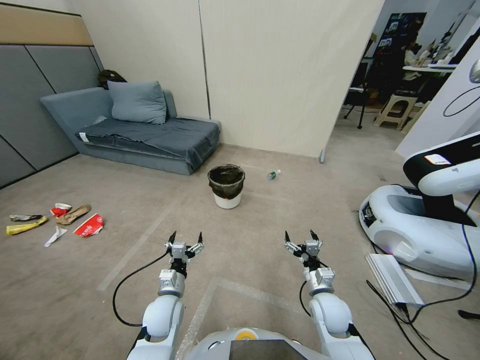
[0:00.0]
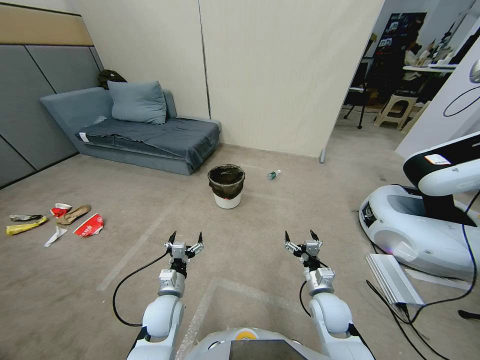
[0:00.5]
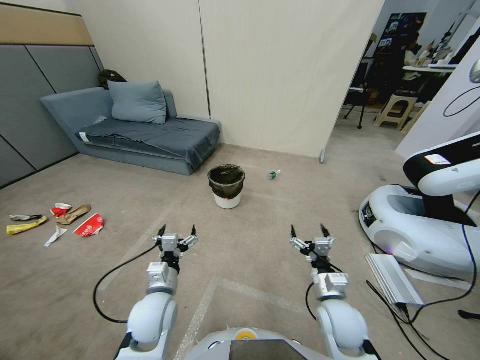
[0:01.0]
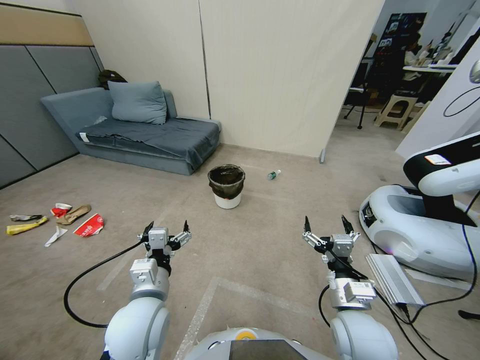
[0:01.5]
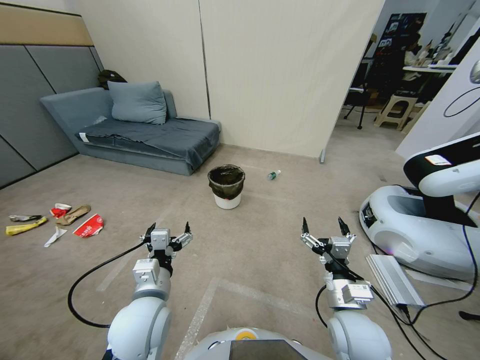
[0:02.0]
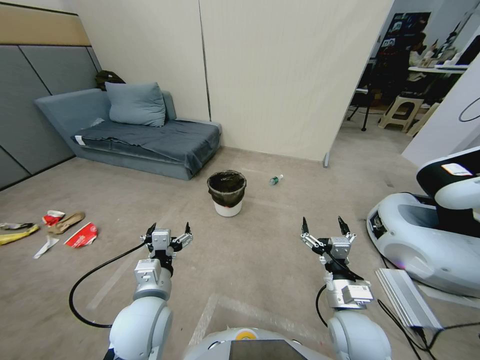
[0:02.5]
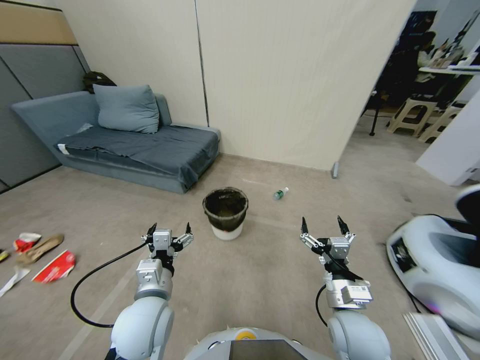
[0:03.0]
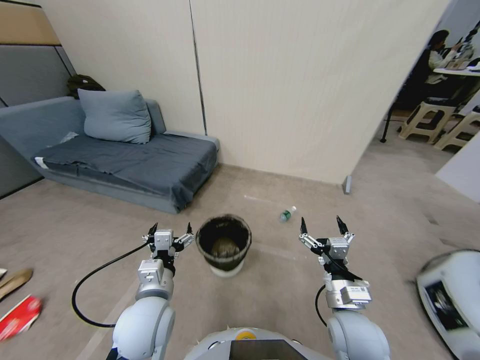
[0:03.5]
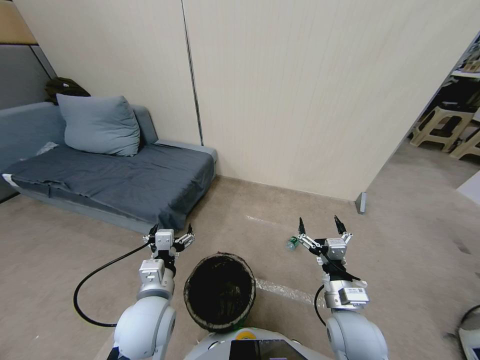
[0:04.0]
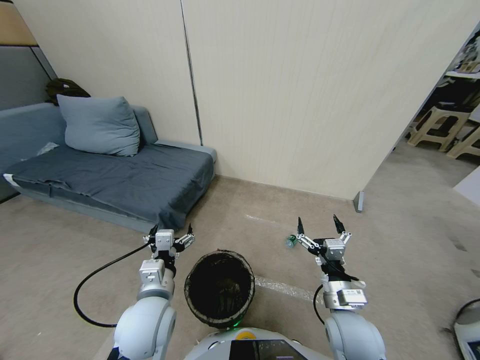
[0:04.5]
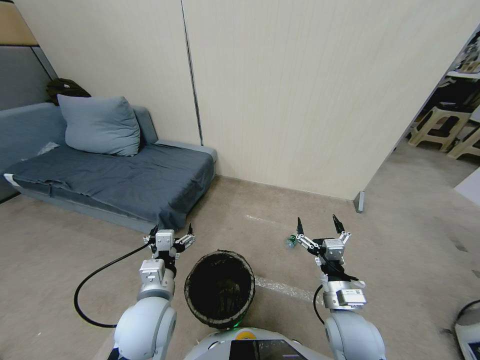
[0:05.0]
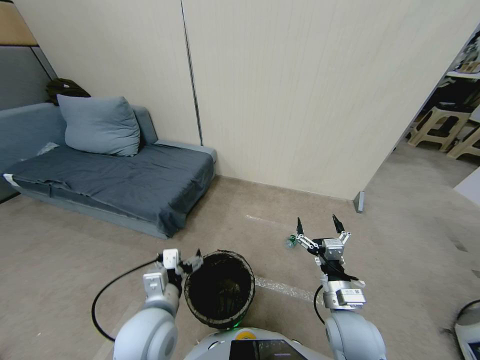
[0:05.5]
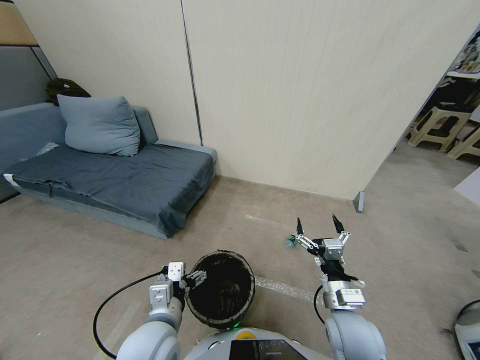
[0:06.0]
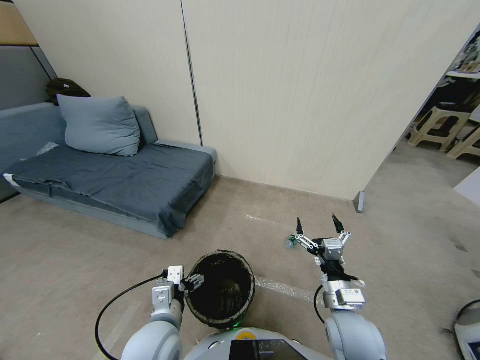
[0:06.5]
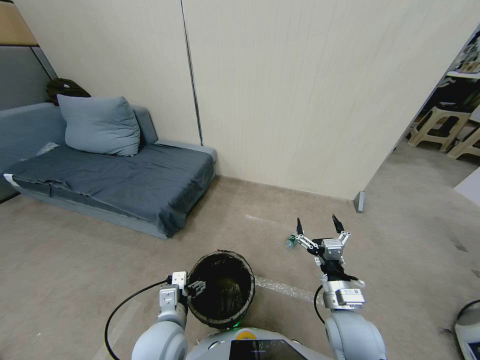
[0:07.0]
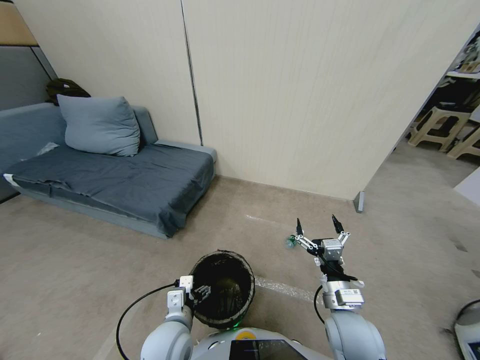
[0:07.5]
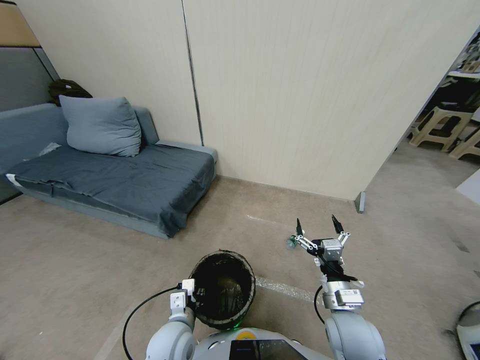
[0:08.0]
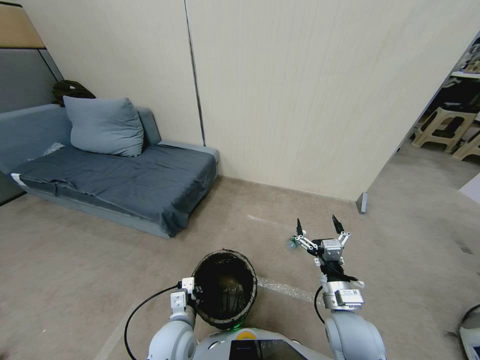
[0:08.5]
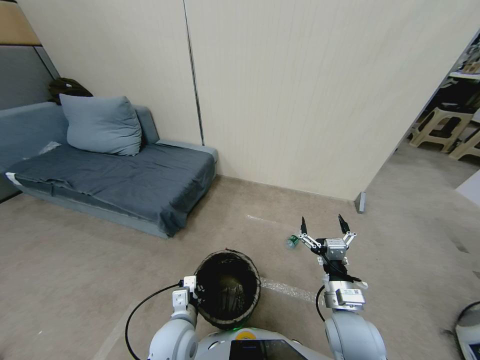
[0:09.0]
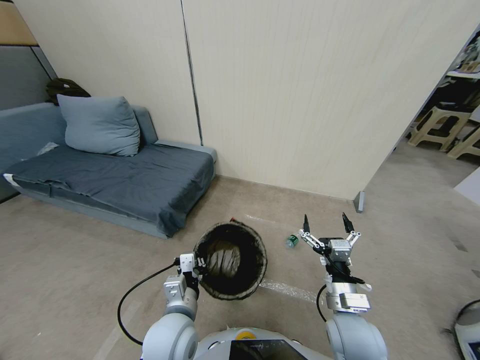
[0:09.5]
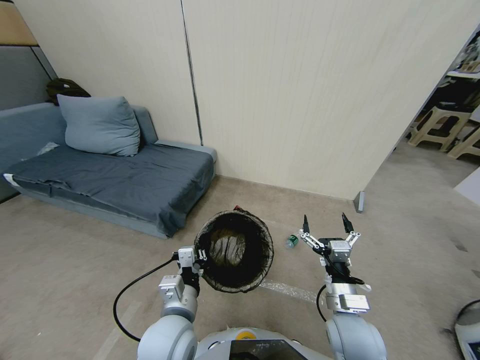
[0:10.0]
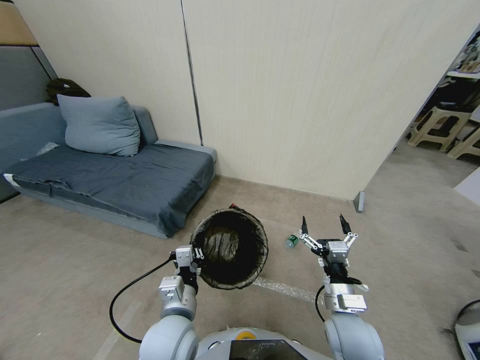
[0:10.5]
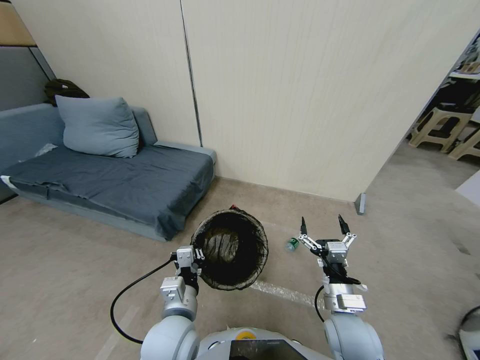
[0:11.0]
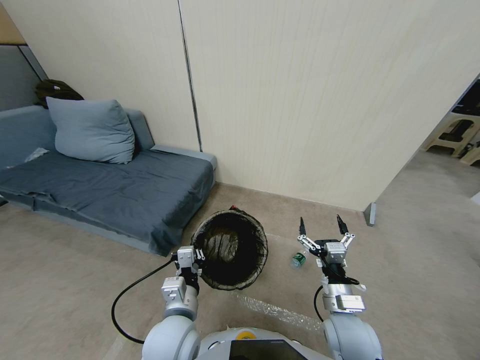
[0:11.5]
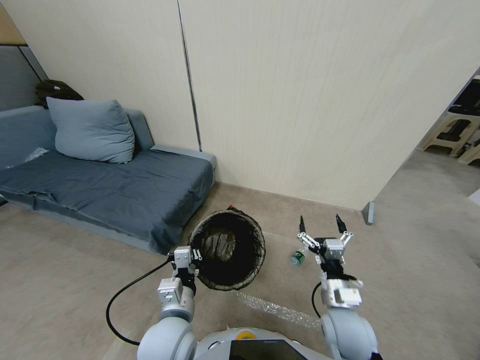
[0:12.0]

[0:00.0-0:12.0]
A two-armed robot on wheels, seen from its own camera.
Task of the whole recording: Pick up the trash bin, then pick up the garbage from the floor and place it into the trash bin.
0:06.0 to 0:08.0: The left gripper shifts some 10 cm downward, and closes.
0:08.0 to 0:10.0: The left gripper is displaced upward by about 10 cm.
0:10.0 to 0:12.0: The grippers make only small movements.

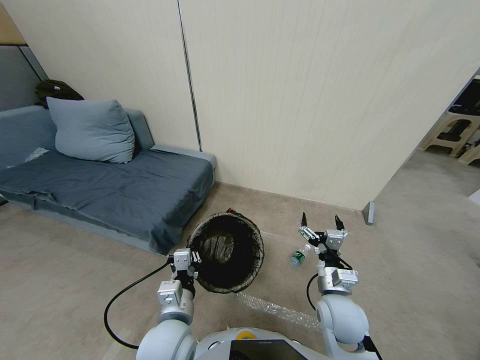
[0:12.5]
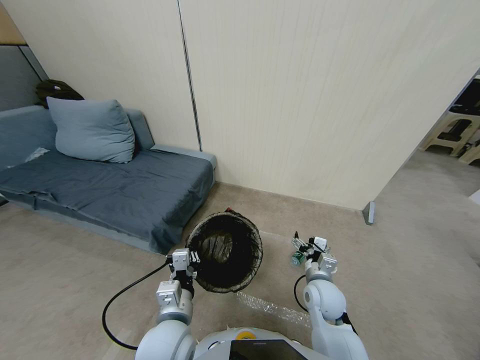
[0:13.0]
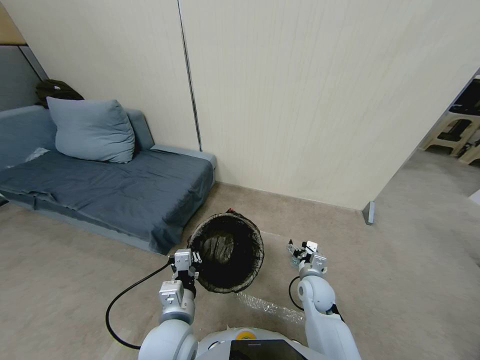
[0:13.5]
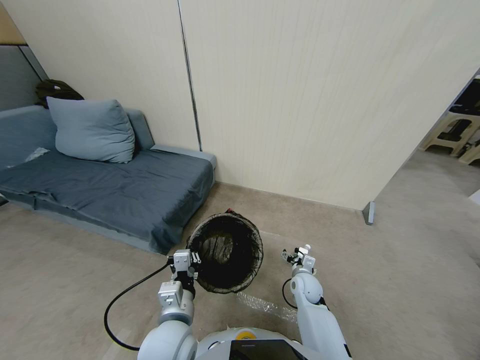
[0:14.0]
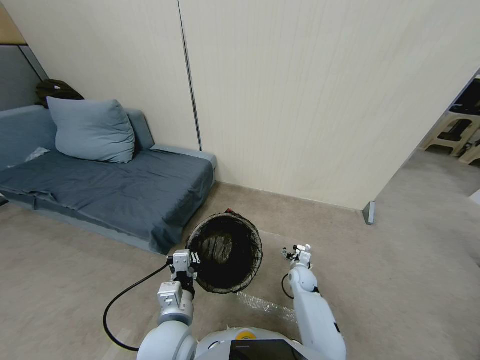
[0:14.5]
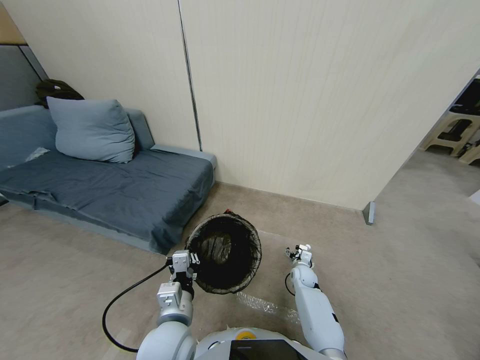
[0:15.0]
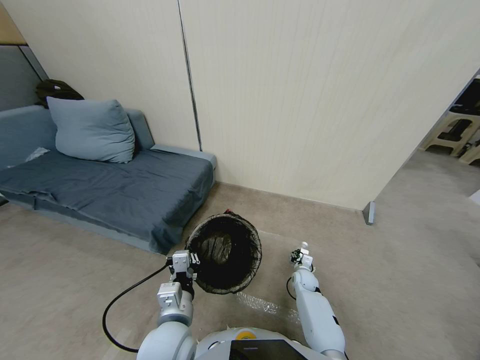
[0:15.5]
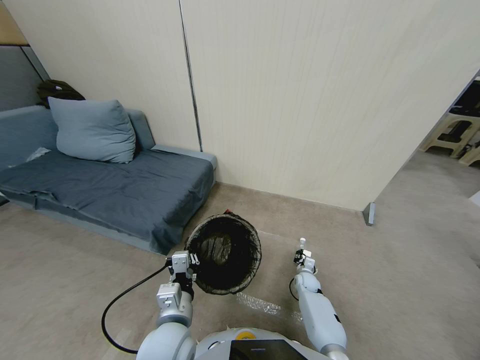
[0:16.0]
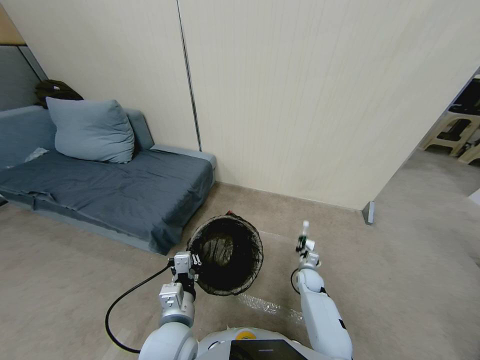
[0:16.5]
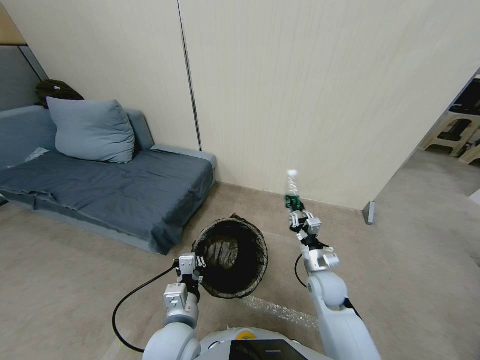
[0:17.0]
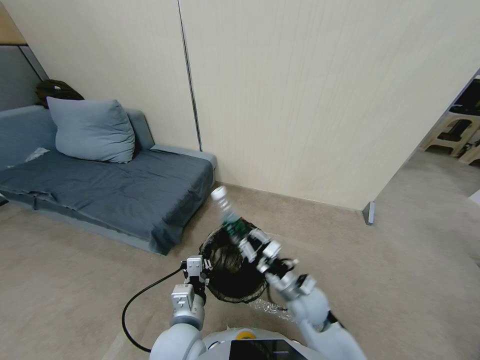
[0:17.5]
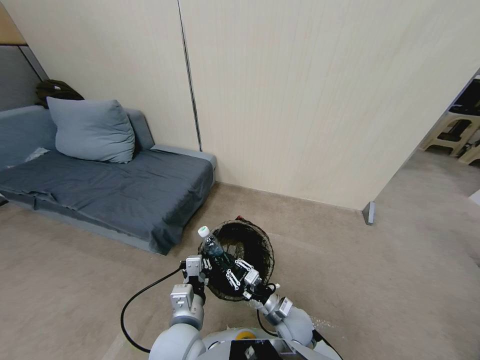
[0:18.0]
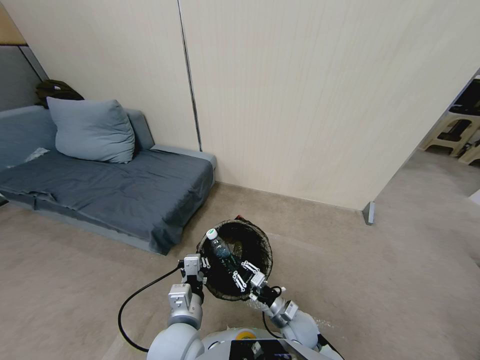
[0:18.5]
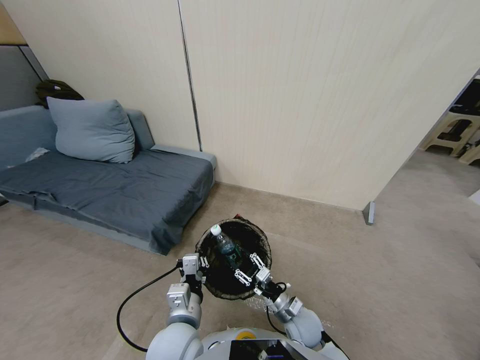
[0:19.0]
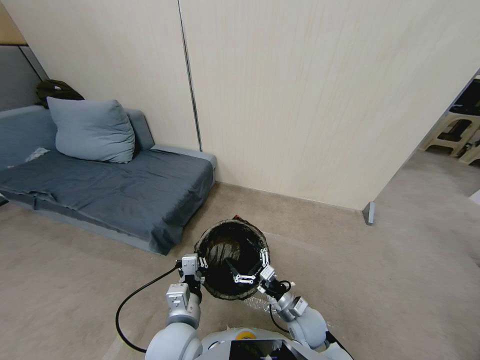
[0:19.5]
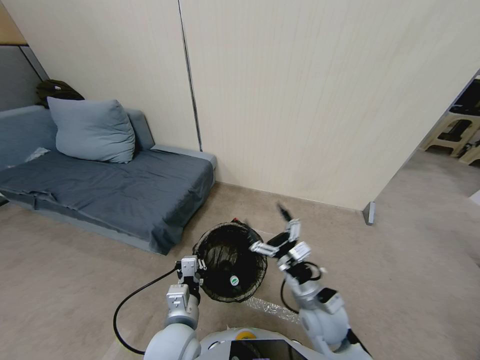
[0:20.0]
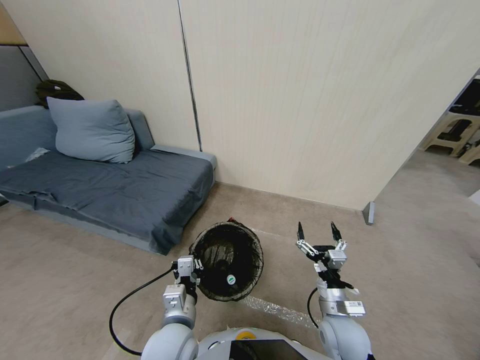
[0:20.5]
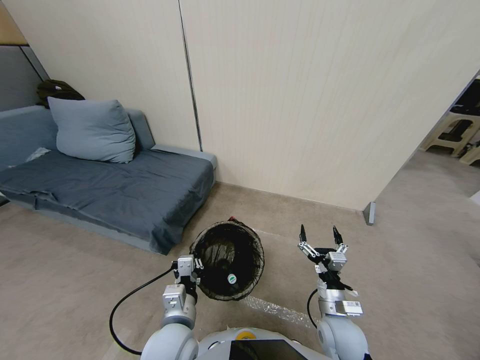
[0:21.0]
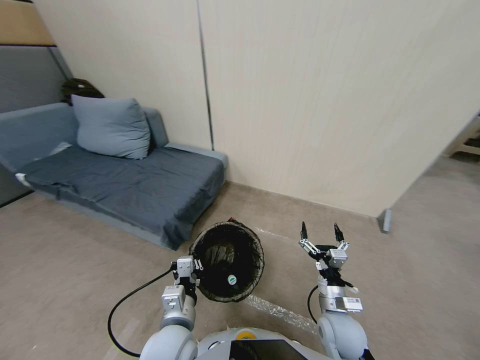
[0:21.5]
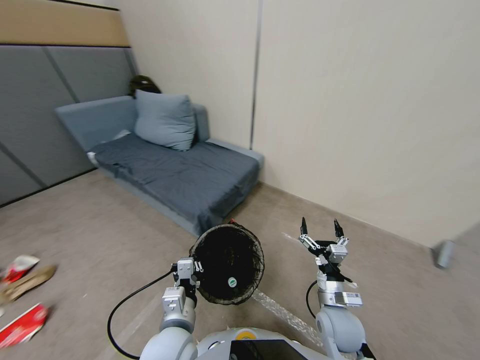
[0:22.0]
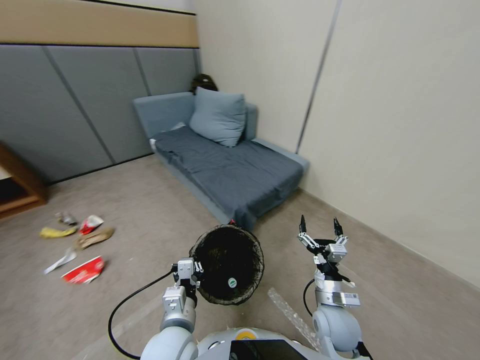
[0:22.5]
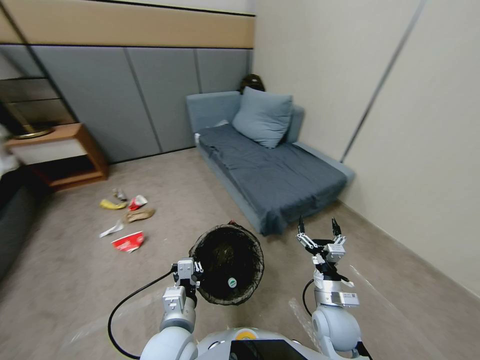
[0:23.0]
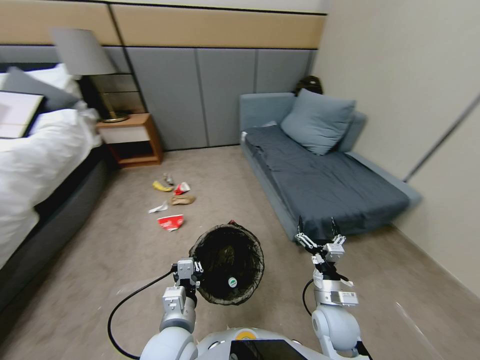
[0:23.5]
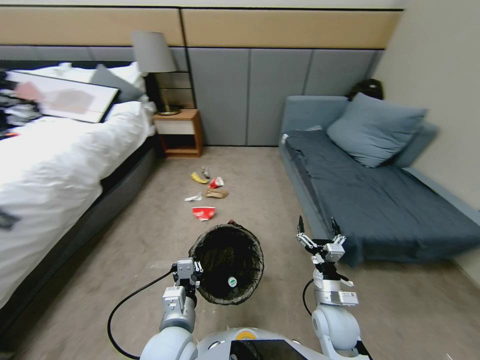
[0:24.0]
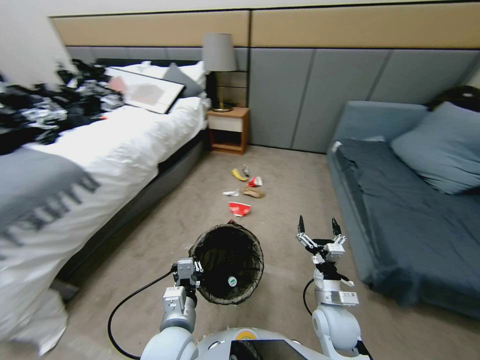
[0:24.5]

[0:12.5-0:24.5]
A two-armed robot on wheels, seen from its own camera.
Task of the whole recording: Pick up the trash bin, then pick up the garbage from the floor and place it into the trash bin.
0:12.5 to 0:14.5: The right gripper goes roughly 25 cm downward and forward.
0:14.5 to 0:16.5: The right gripper reaches approximately 10 cm downward, then returns, and closes.
0:16.5 to 0:18.5: The right gripper goes roughly 20 cm backward and to the left.
0:18.5 to 0:20.5: The right gripper travels upward and to the right by about 10 cm, and opens its fingers.

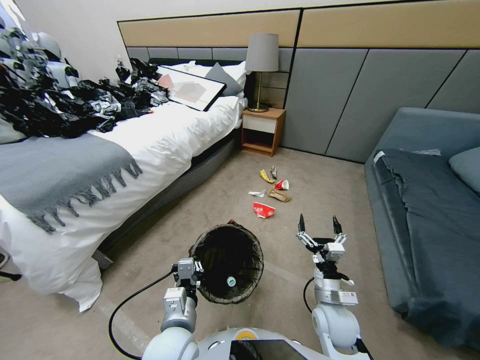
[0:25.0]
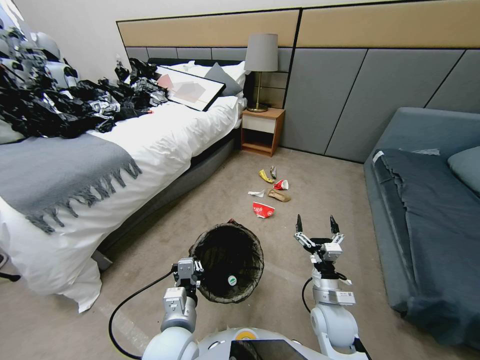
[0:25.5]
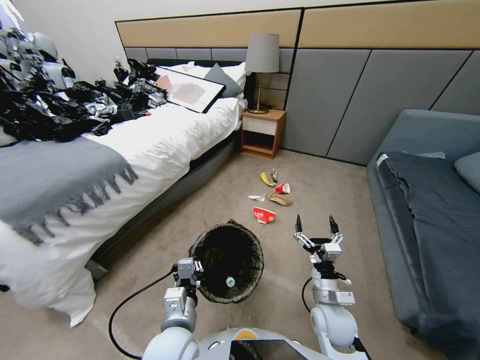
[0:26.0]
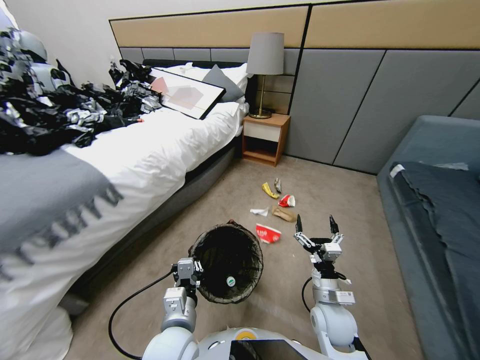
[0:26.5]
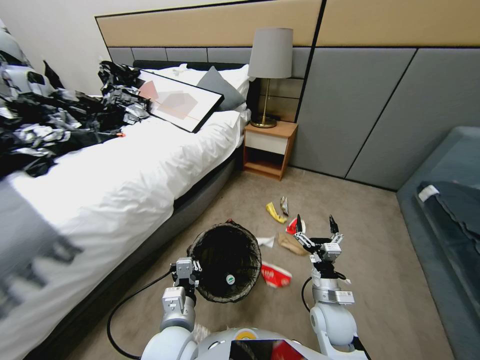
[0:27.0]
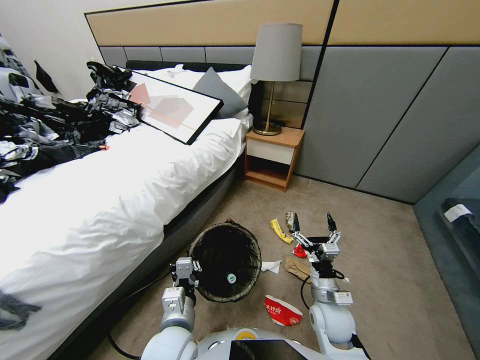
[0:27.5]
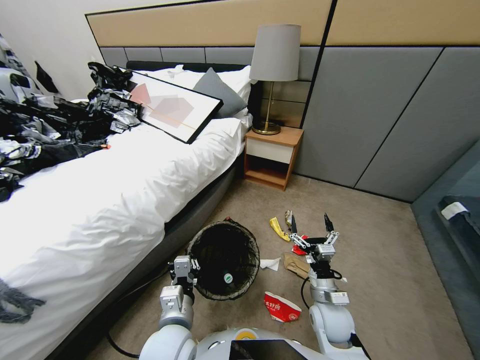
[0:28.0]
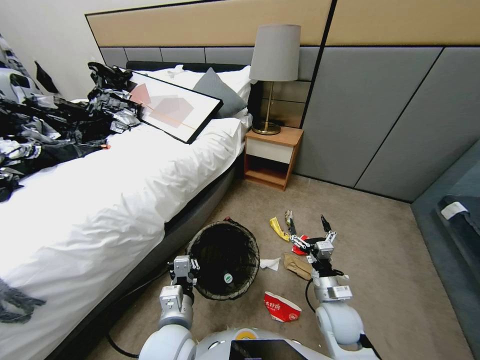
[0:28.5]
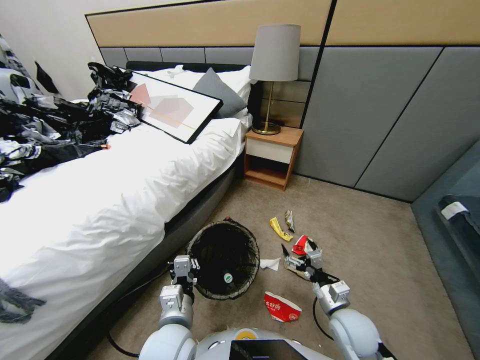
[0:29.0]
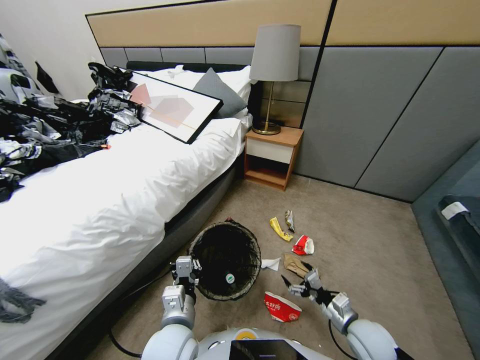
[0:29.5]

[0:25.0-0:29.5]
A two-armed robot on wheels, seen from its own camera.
Task of the whole recording: Pick up the trash bin, then pick up the garbage from the floor and place it into the trash bin.
0:27.0 to 0:29.5: The right gripper moves to the right, roughly 10 cm.
